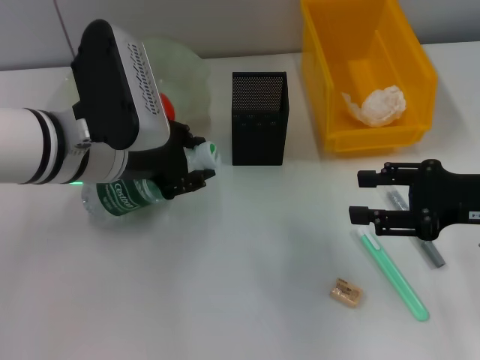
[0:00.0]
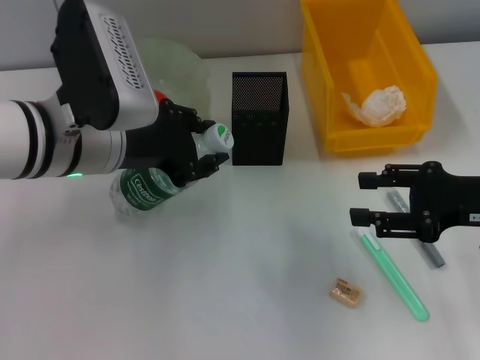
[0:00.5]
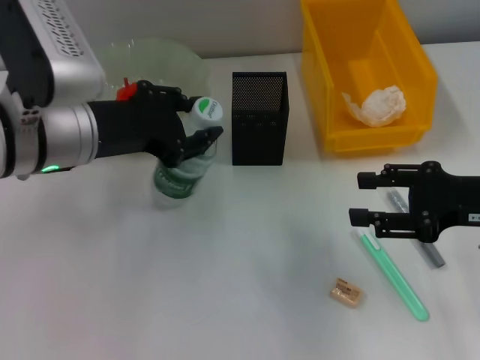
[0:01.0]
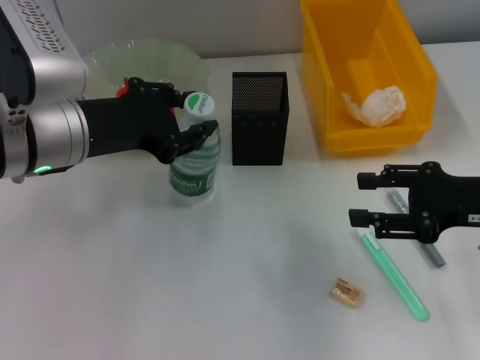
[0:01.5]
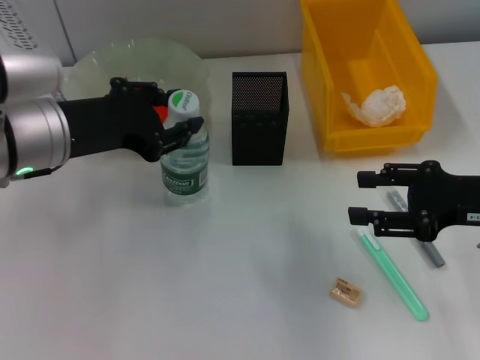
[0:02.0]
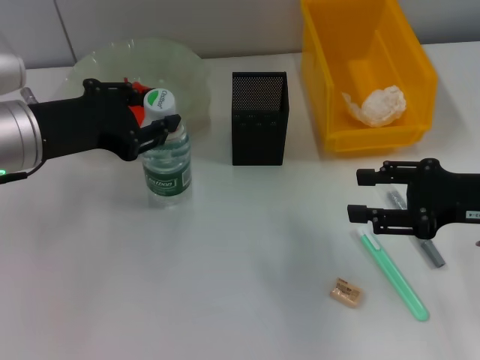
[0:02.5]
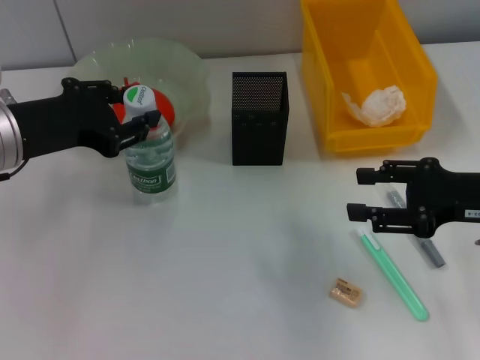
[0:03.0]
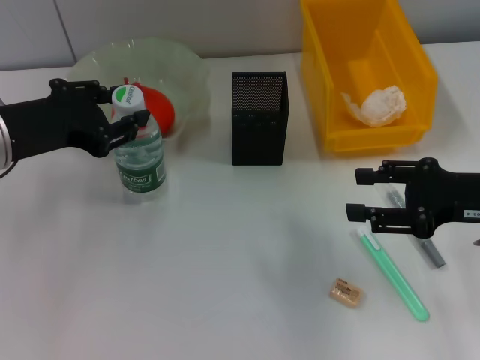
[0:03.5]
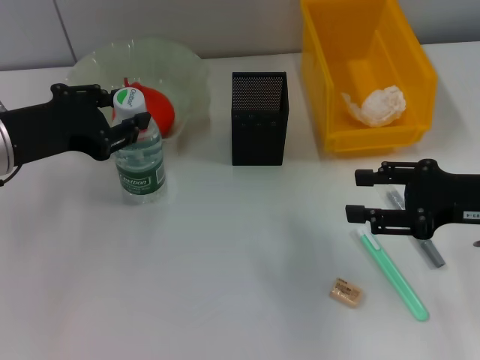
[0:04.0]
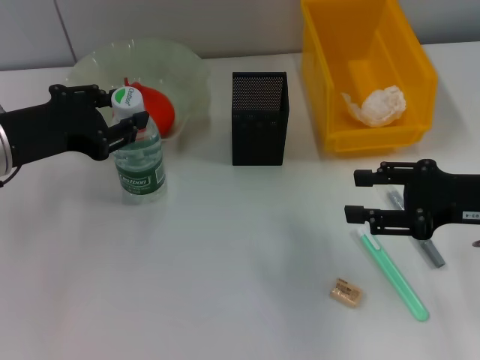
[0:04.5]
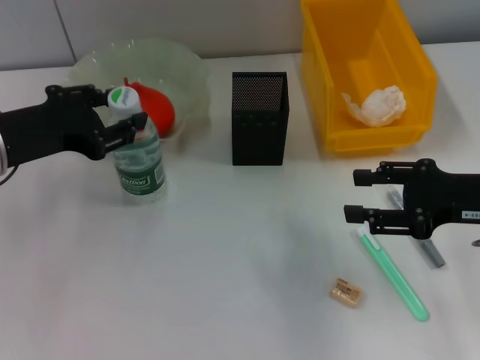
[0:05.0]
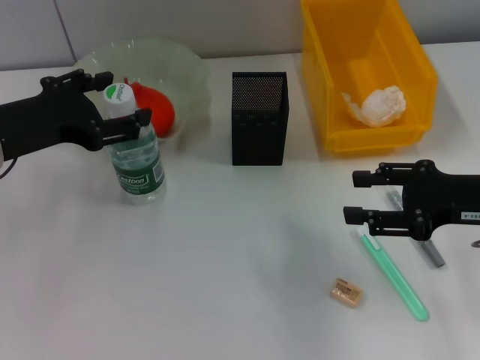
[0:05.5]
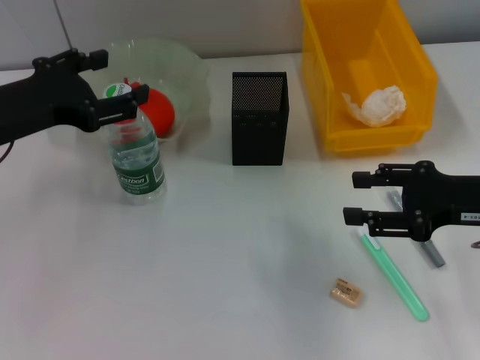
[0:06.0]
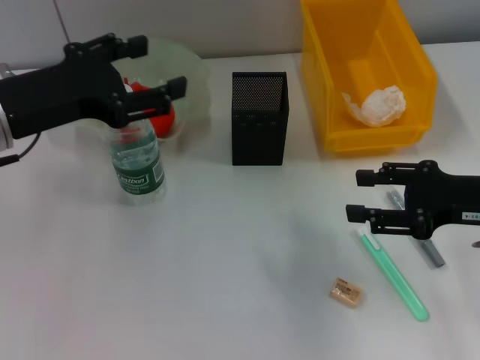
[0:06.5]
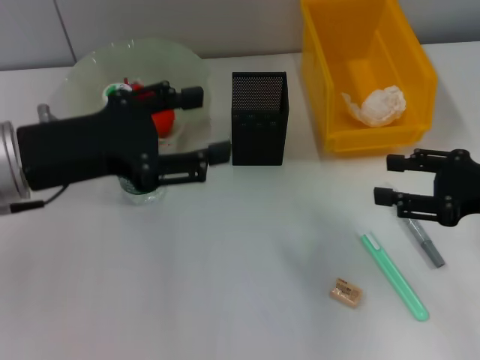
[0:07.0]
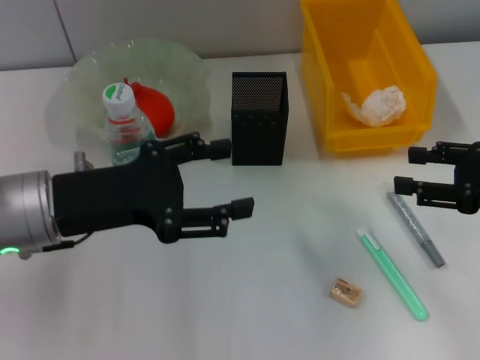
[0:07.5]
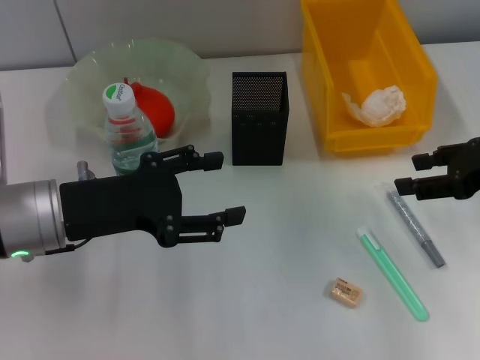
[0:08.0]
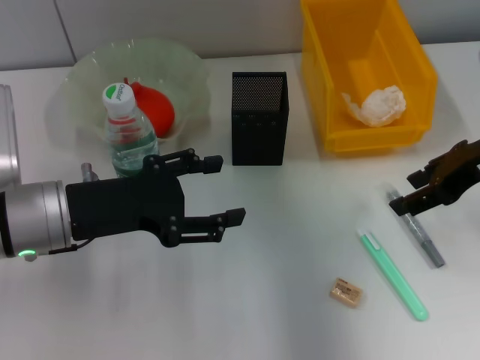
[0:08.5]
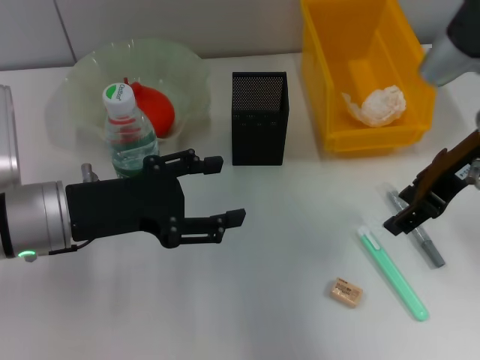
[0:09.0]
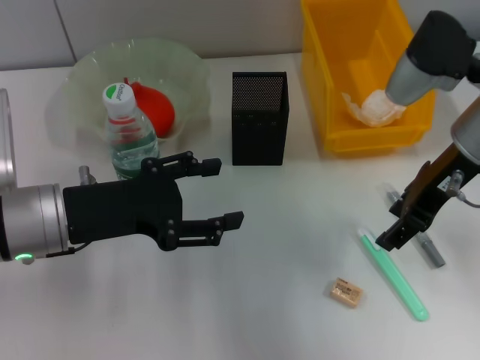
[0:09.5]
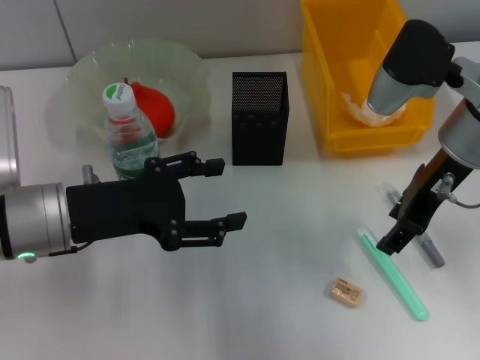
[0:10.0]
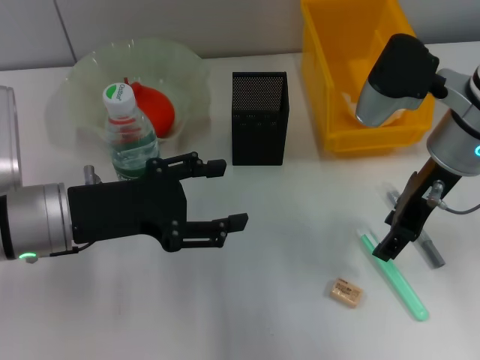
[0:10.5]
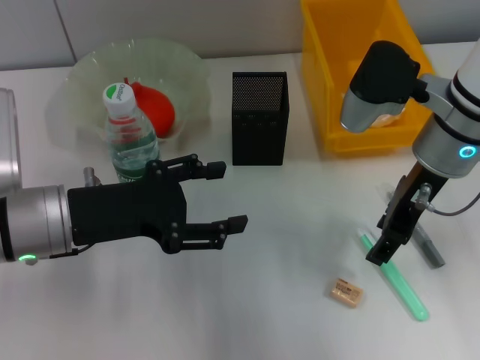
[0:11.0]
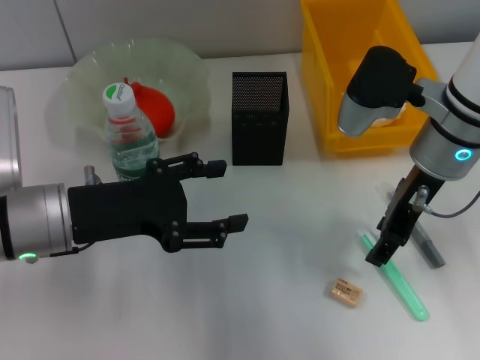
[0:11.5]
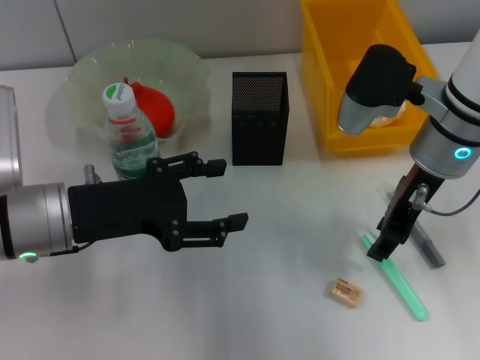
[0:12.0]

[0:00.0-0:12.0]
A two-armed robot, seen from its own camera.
Step, 0:00.0 to 0:05.5: Place the water bottle on the table with the left hand.
0:02.0 to 0:04.0: The grippers stay close to where they were, moving slightly.
0:04.0 to 0:06.0: The left gripper opens.
0:06.0 to 0:08.0: The right gripper shifts by some 5 cm. Meanwhile the left gripper moves roughly 10 cm.
0:08.0 to 0:10.0: The right gripper travels to the left by about 10 cm.
0:10.0 to 0:12.0: The grippers move only a little.

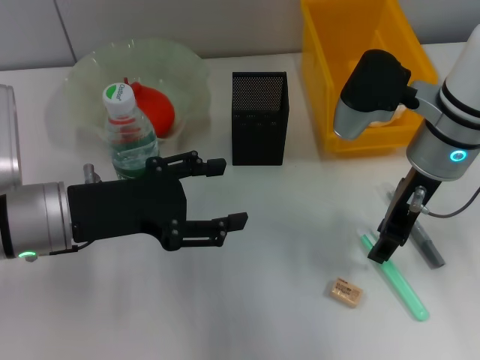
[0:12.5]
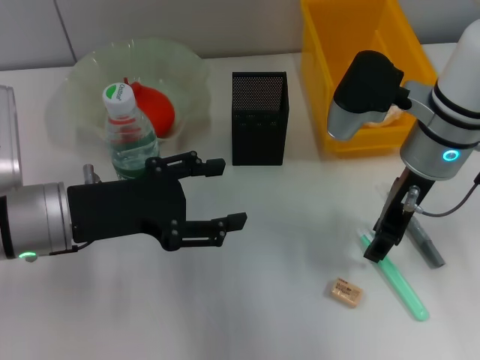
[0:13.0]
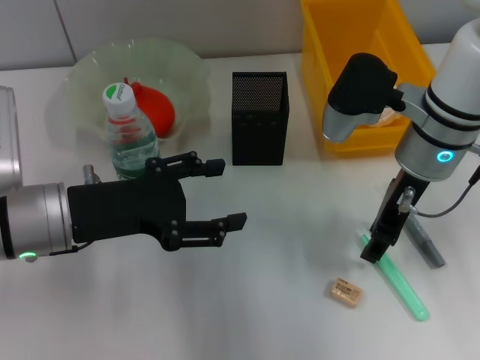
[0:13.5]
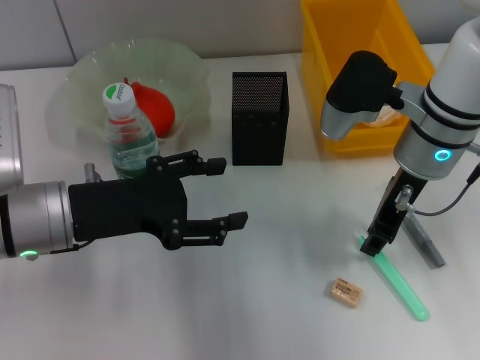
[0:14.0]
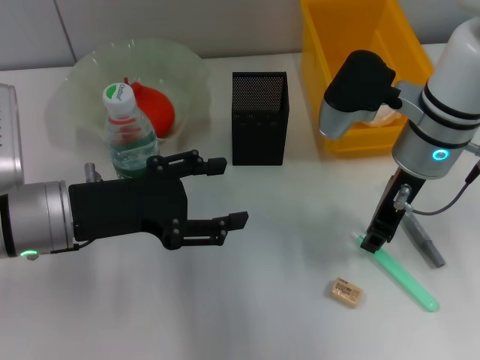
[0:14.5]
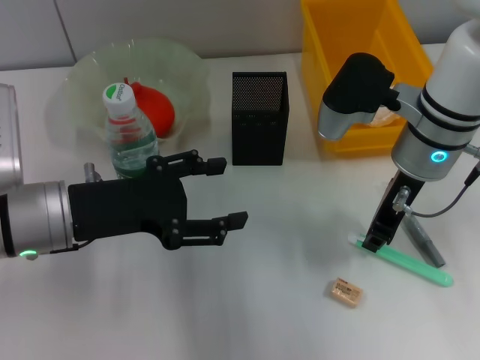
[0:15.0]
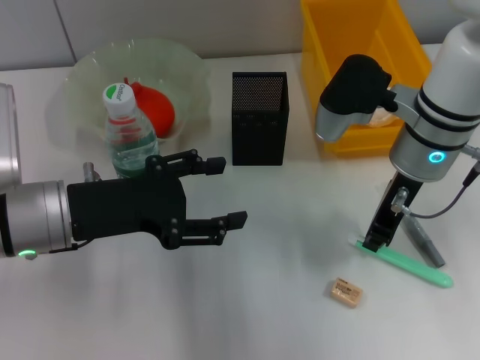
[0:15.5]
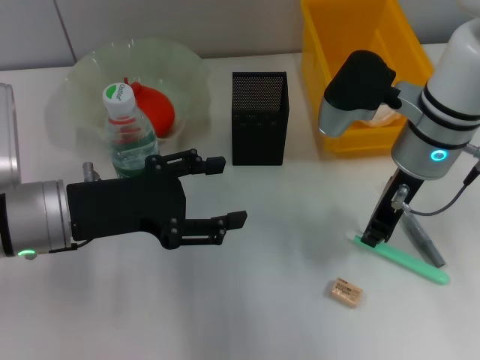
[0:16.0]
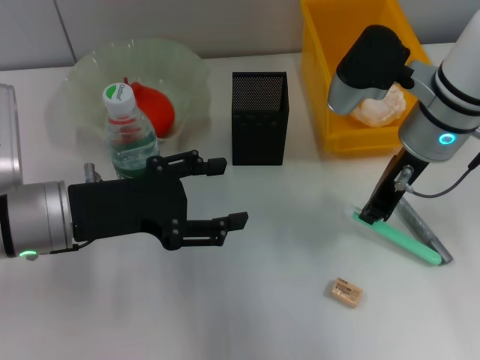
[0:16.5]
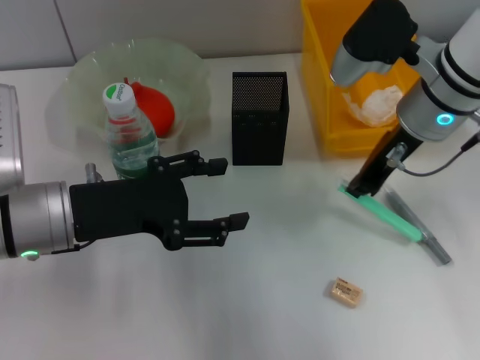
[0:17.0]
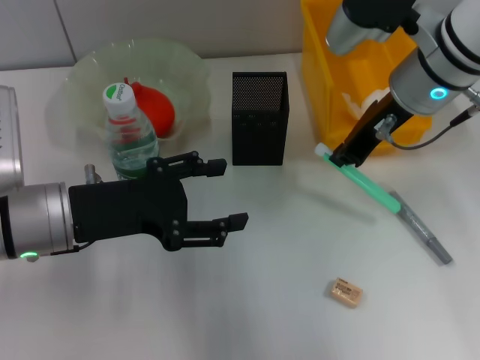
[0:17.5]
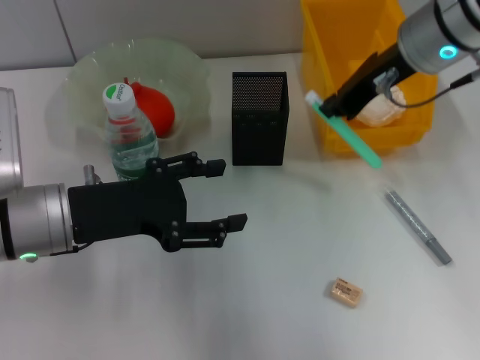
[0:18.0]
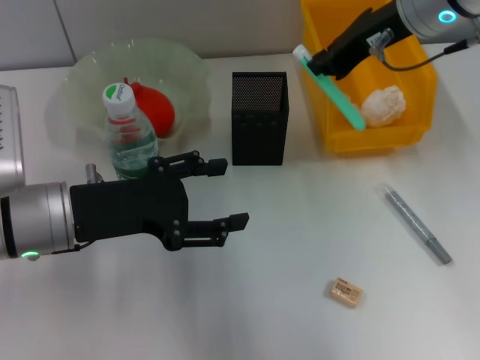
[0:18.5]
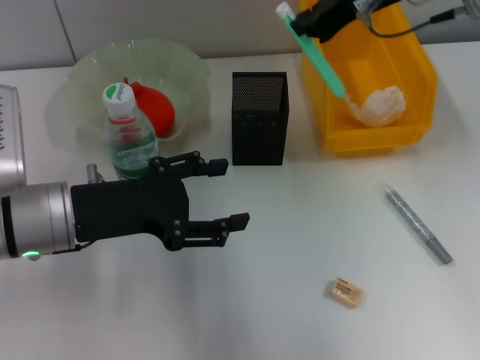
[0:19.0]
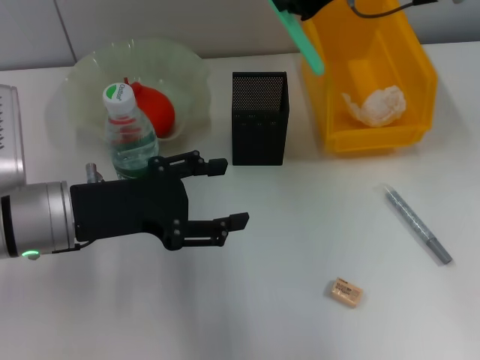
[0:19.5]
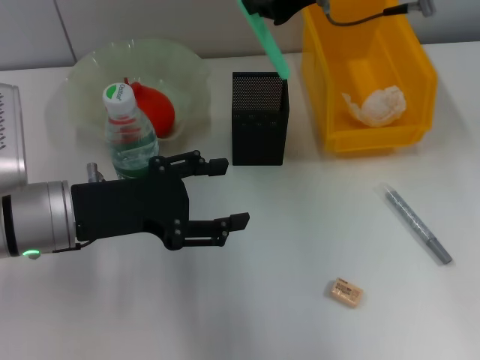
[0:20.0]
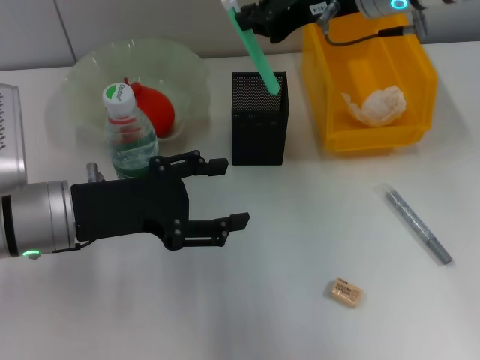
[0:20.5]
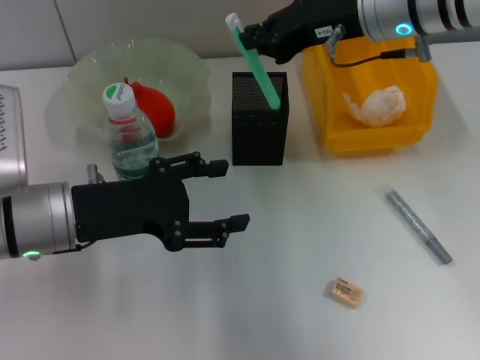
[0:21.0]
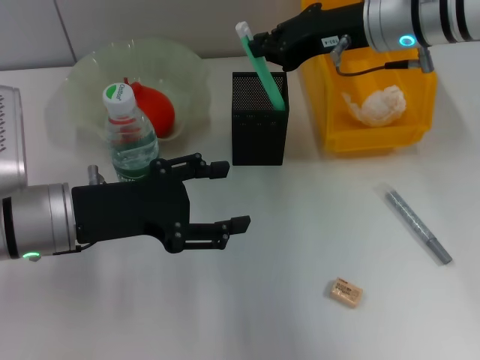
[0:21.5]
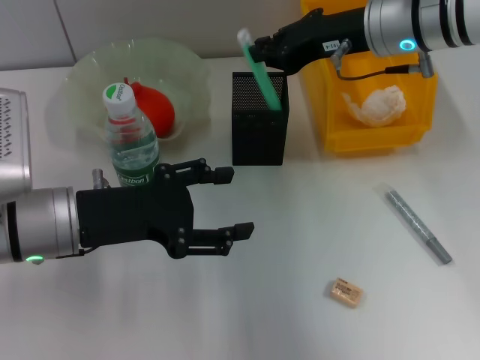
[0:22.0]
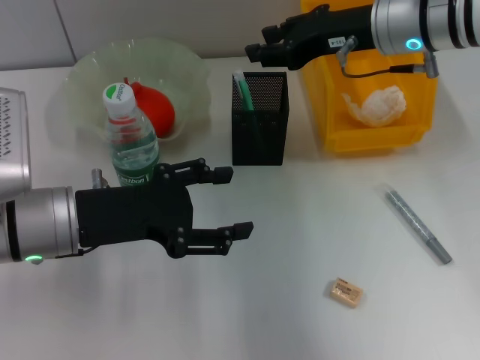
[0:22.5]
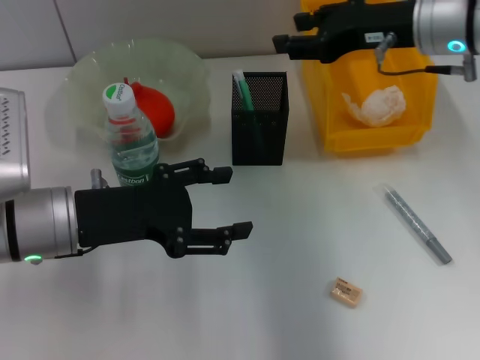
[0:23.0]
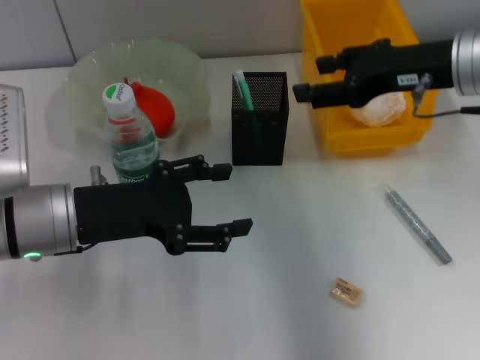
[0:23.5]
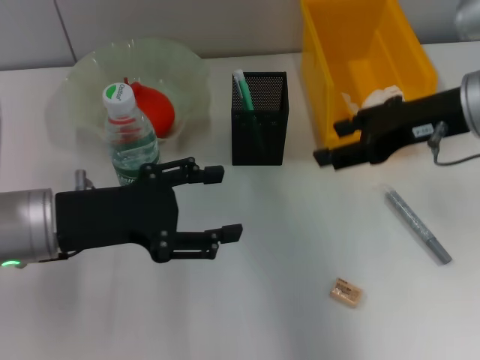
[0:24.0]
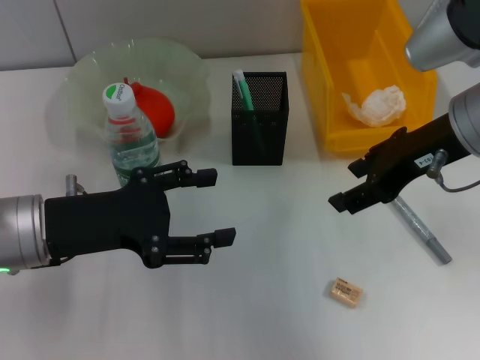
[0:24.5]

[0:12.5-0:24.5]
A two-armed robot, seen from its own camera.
Step, 0:12.5 to 0:15.0: Grab the blue utility knife with the right hand.
Step, 0:16.0 to 0:22.0: Place the blue utility knife into the pen holder with the right hand.
0:12.5 to 0:14.5: The two grippers keep their place.
0:14.5 to 0:16.5: The grippers make only small movements.
0:16.5 to 0:18.5: The right gripper travels upward by roughly 10 cm.
0:20.5 to 0:22.5: The right gripper opens.
0:22.5 to 0:24.5: The right gripper is displaced backward by roughly 10 cm.

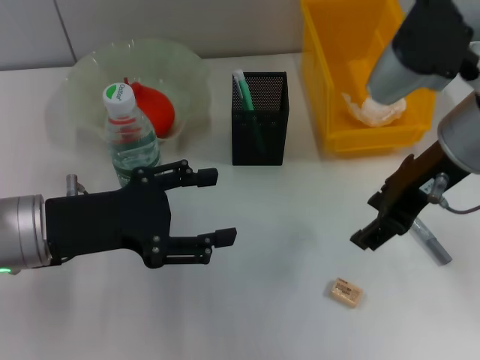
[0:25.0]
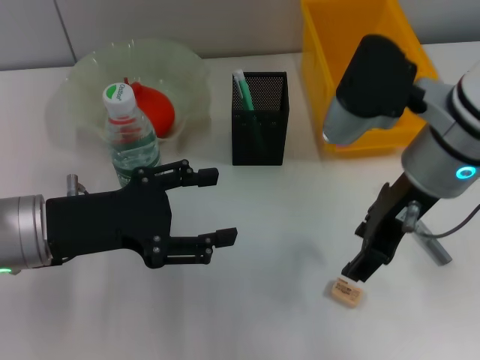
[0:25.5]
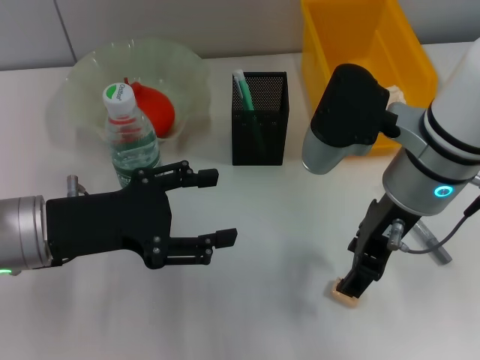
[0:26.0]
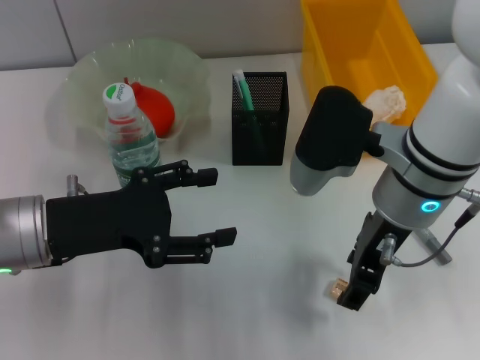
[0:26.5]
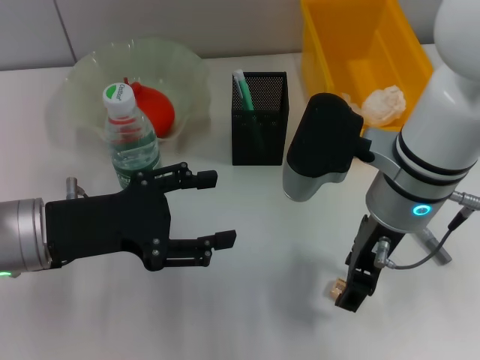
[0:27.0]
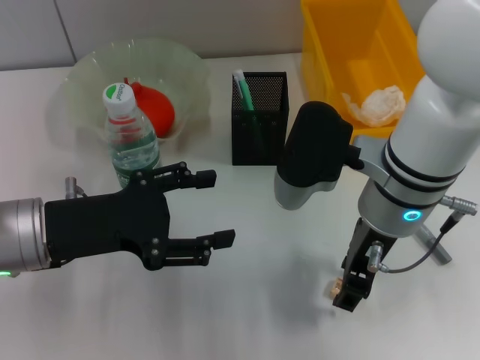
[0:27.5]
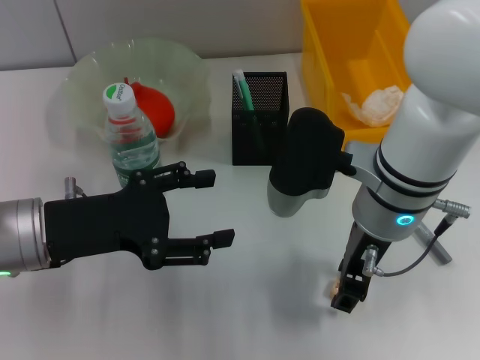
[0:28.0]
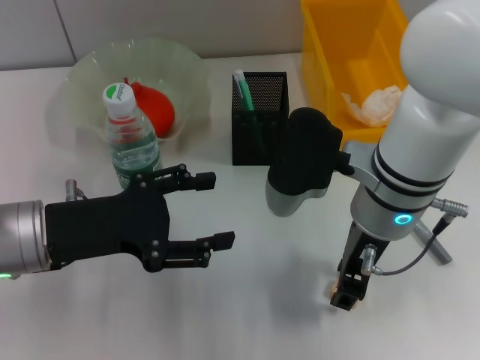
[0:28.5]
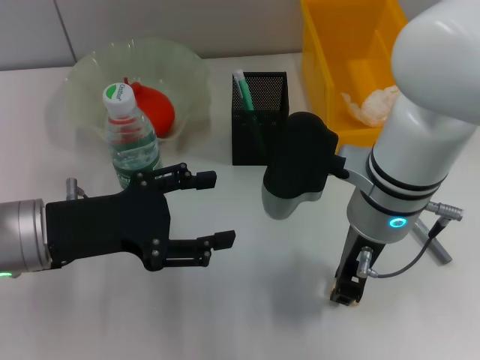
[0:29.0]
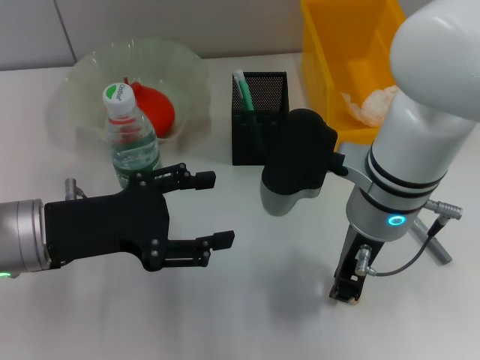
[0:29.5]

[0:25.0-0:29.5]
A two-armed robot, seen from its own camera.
Step, 0:25.0 to 0:29.0: Grab the eraser with the right hand.
0:25.0 to 0:27.0: The right gripper goes about 10 cm downward and to the left.
0:27.0 to 0:29.5: The right gripper closes up.
